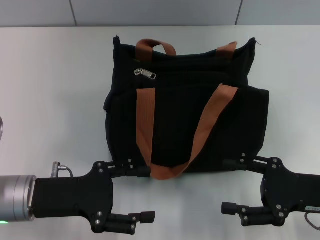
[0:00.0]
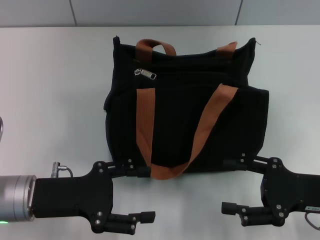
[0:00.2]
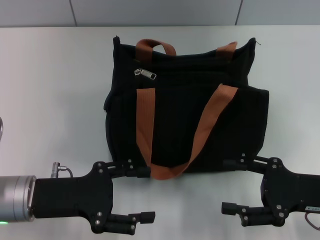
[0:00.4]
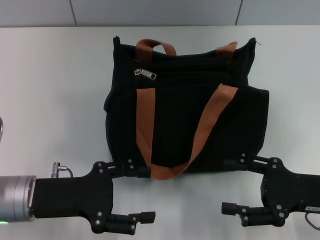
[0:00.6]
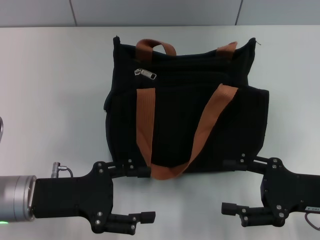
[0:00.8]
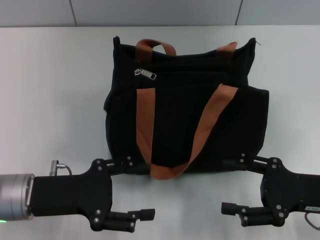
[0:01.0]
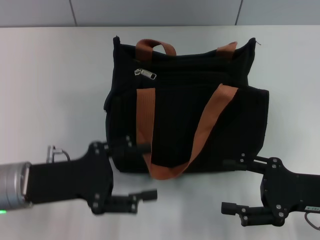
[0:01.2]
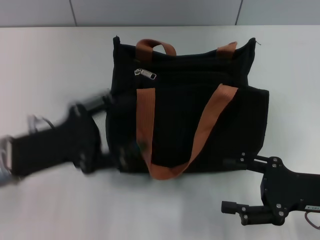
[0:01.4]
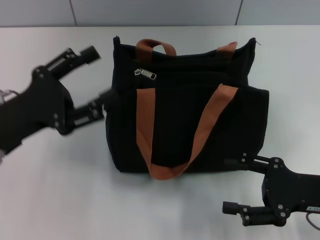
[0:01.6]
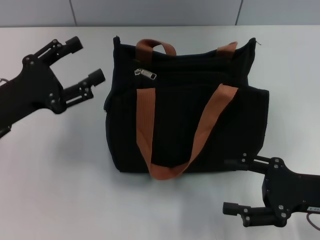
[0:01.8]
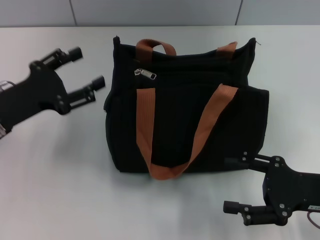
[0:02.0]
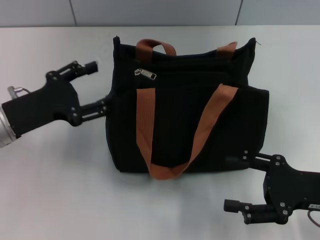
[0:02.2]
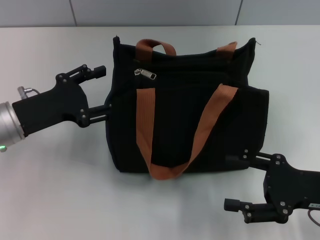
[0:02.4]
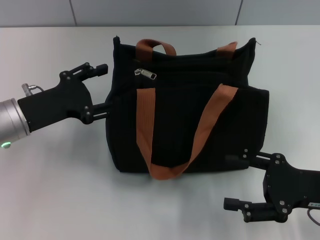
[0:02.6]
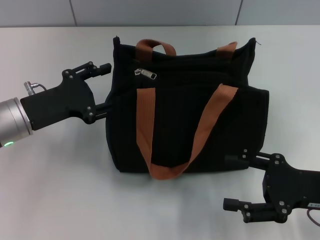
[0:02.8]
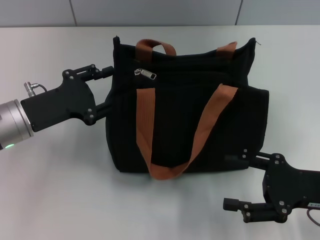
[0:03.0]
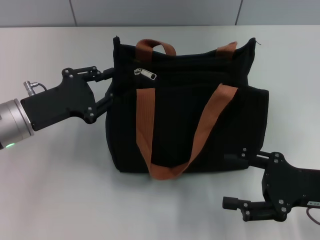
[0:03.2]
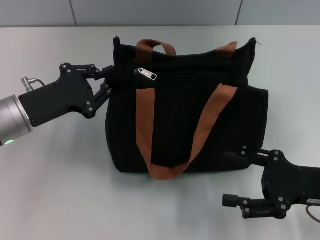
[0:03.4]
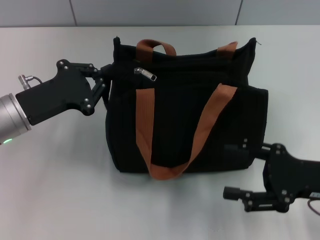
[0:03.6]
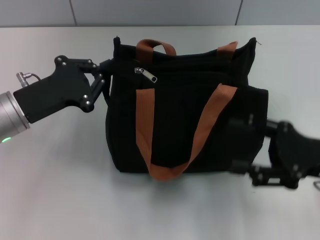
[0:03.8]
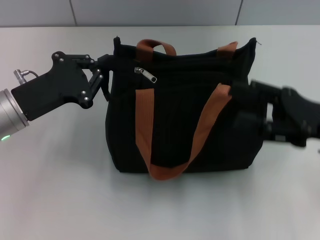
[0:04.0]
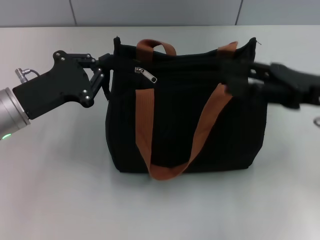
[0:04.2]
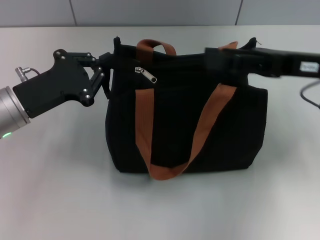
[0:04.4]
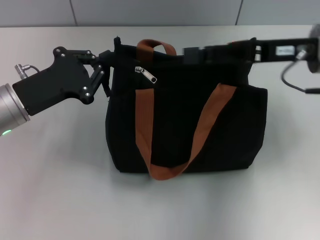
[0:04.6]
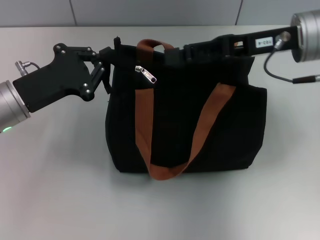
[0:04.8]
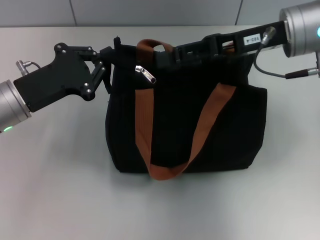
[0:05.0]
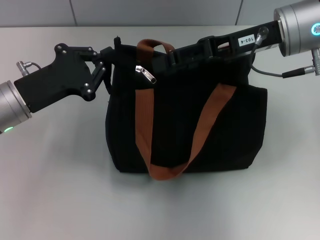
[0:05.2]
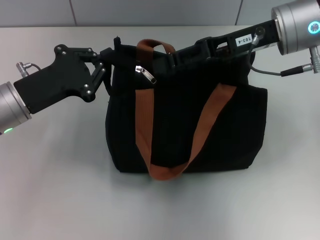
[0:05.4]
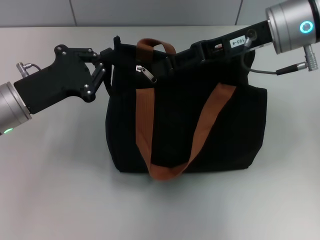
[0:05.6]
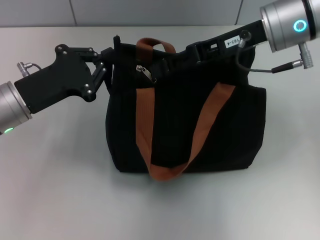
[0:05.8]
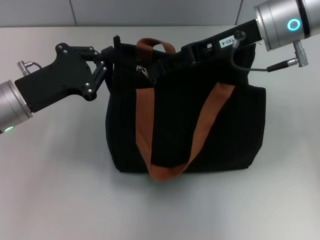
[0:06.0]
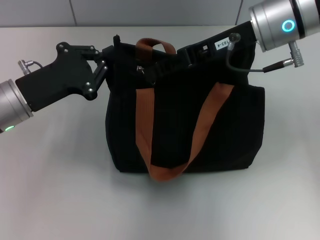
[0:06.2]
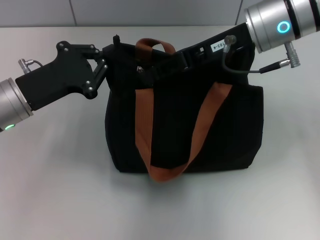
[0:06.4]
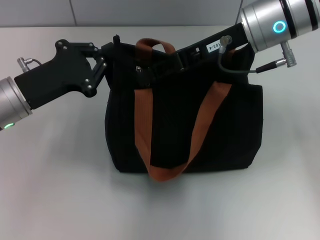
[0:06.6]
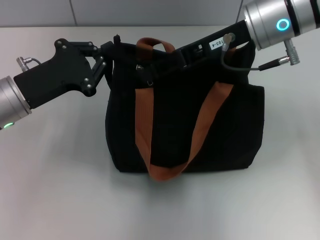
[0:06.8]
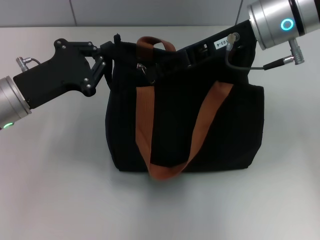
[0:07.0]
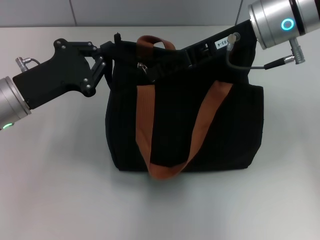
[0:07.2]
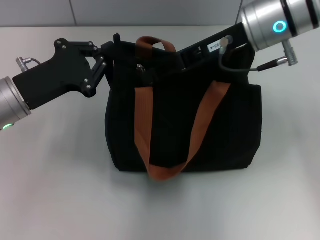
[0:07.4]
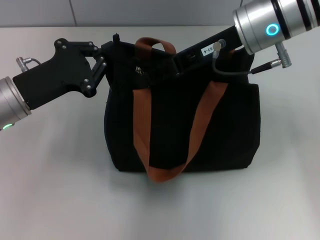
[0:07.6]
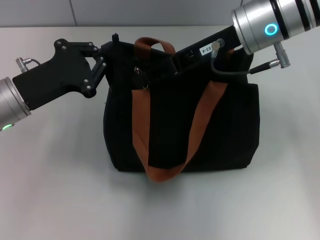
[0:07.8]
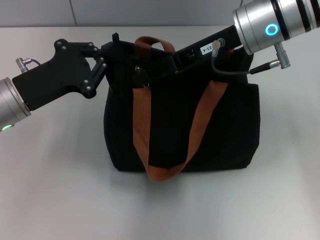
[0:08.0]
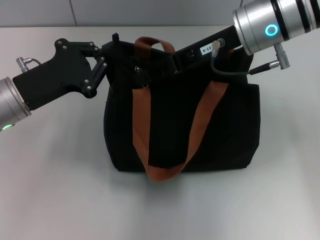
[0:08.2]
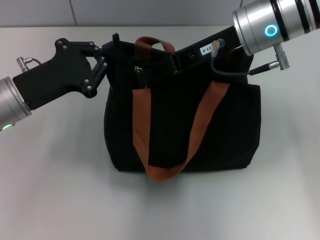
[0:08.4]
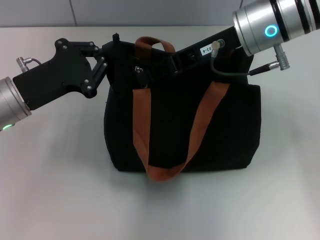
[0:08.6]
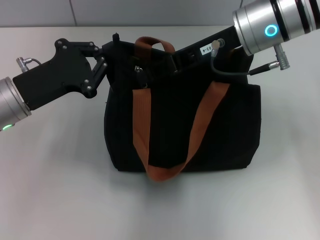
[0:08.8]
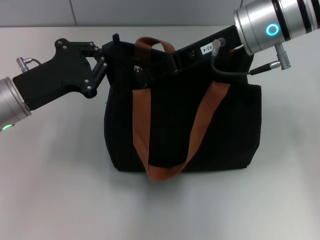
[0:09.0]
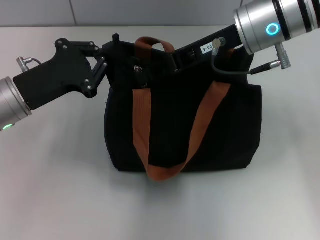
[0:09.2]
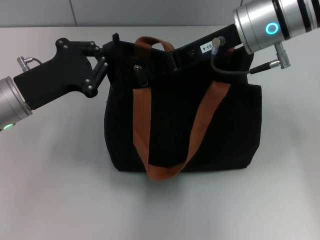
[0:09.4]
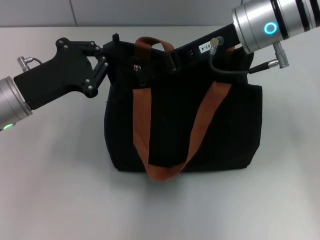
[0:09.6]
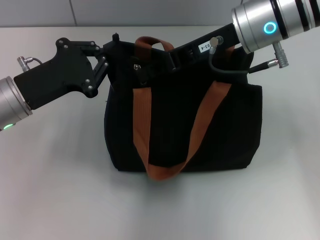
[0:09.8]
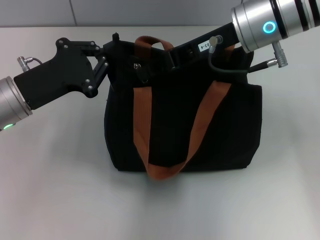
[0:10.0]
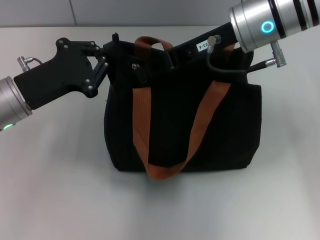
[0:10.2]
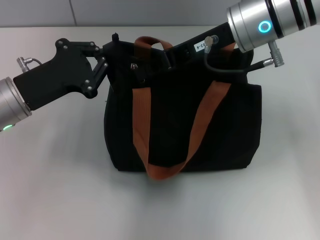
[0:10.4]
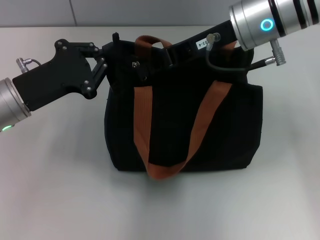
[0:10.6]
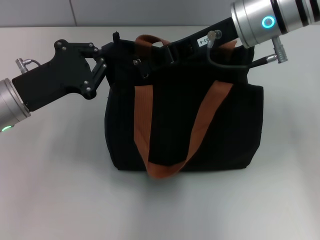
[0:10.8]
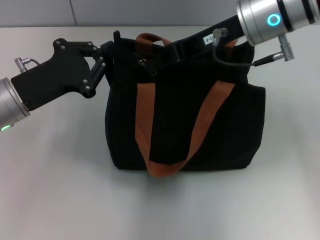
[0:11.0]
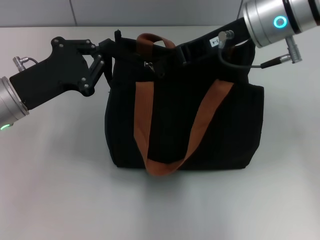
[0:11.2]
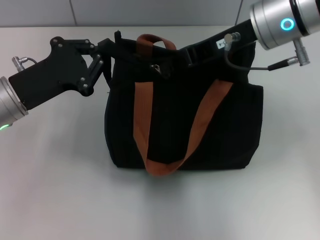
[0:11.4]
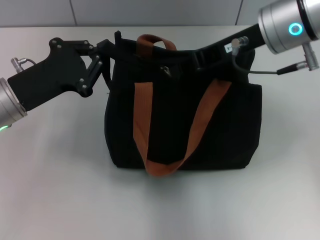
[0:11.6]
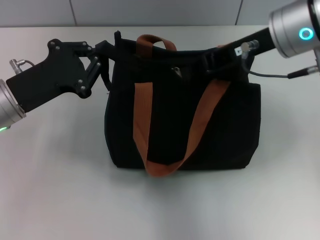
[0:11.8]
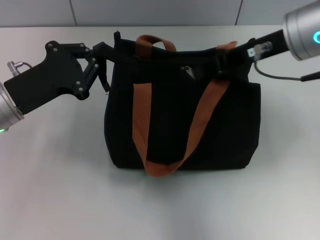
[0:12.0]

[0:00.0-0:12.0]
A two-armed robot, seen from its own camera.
0:00.0 to 0:01.6: The left gripper shifts by approximately 5 cm.
0:01.6 to 0:03.0: The left gripper changes place by approximately 5 cm.
0:03.0 to 0:04.4: The right gripper shifts some 15 cm forward and upward. Meanwhile the left gripper closes its fingers.
0:04.4 to 0:06.0: The right gripper is displaced to the left and forward by some 10 cm, and closes its fingers.
0:06.0 to 0:07.6: The grippers stay close to where they were, moving slightly.
0:07.6 to 0:10.4: Both grippers stay about where they are.
0:10.4 to 0:12.0: The right gripper shifts roughly 5 cm to the right.

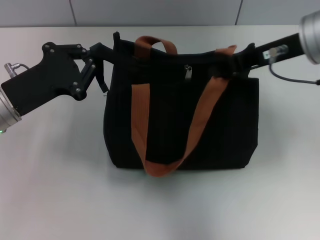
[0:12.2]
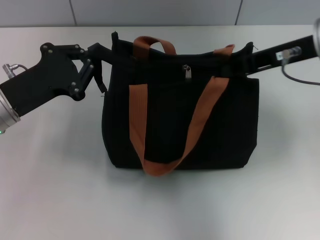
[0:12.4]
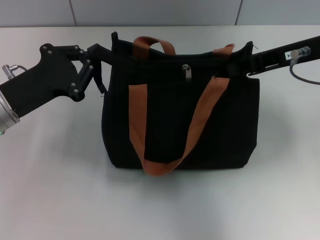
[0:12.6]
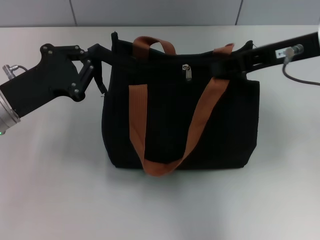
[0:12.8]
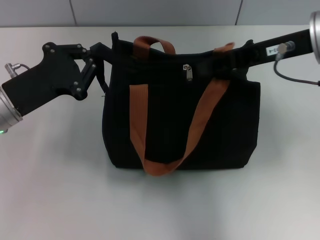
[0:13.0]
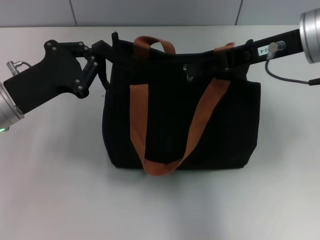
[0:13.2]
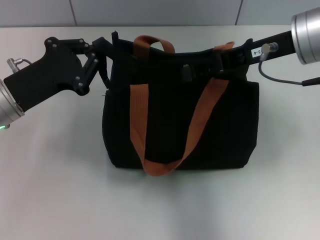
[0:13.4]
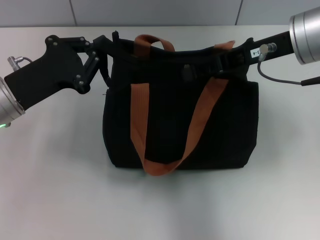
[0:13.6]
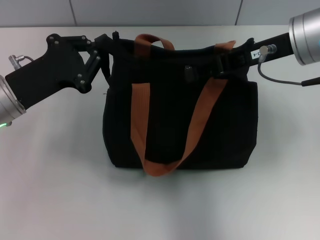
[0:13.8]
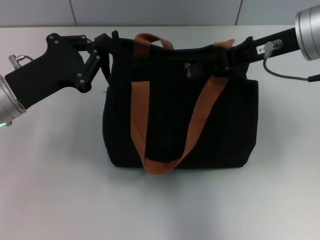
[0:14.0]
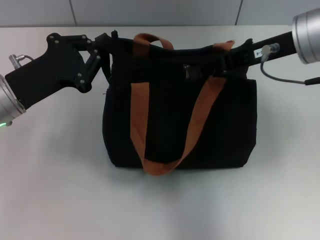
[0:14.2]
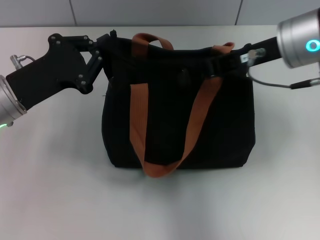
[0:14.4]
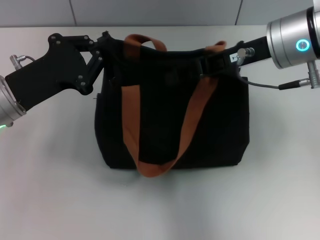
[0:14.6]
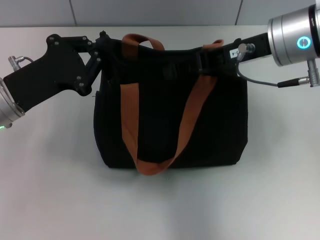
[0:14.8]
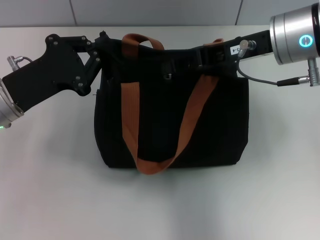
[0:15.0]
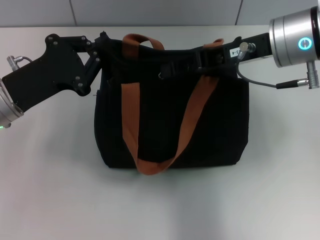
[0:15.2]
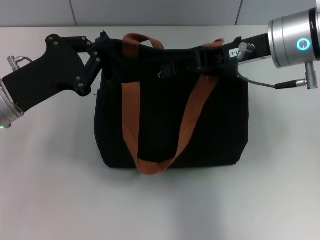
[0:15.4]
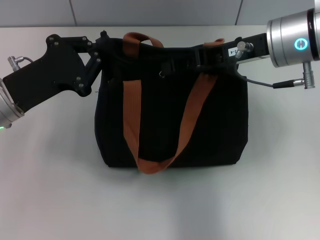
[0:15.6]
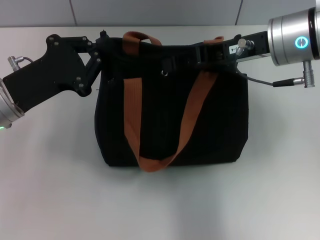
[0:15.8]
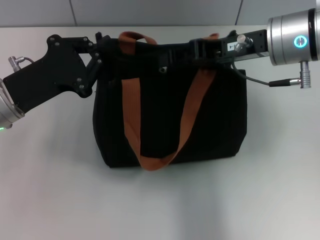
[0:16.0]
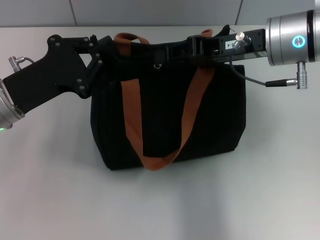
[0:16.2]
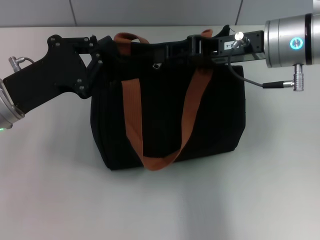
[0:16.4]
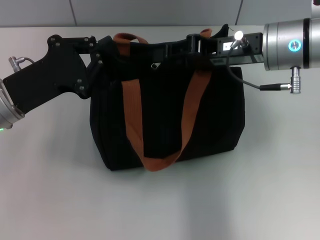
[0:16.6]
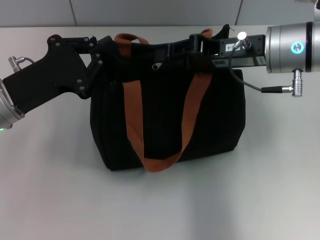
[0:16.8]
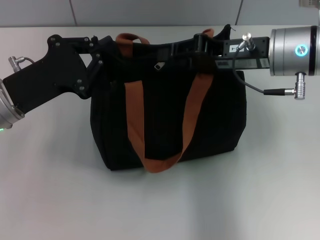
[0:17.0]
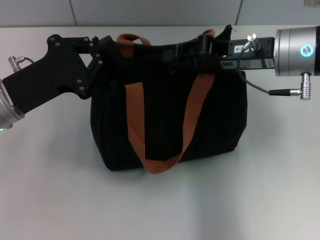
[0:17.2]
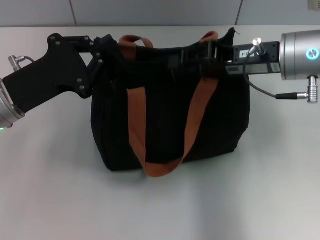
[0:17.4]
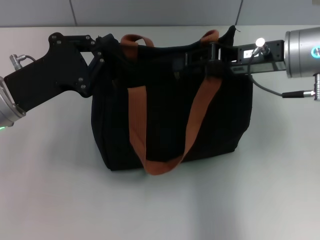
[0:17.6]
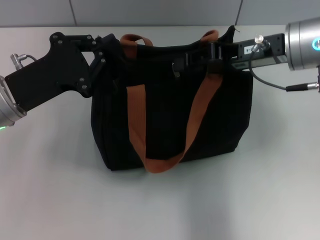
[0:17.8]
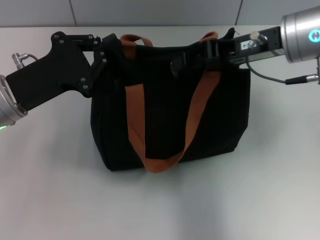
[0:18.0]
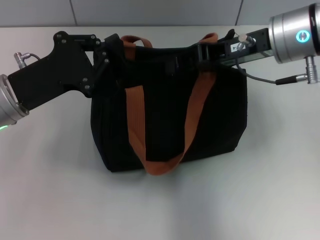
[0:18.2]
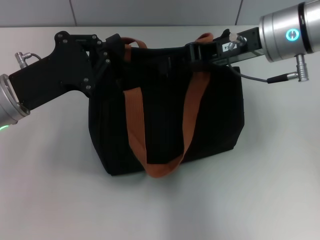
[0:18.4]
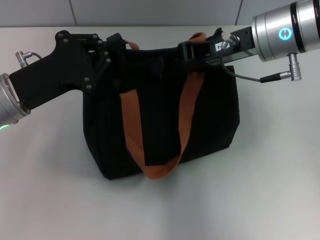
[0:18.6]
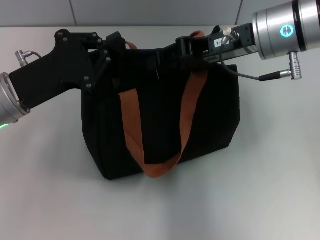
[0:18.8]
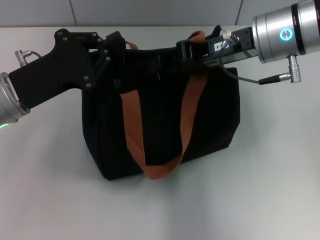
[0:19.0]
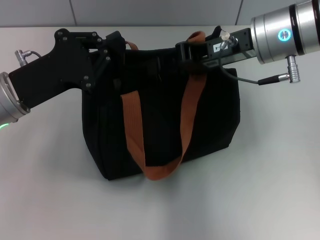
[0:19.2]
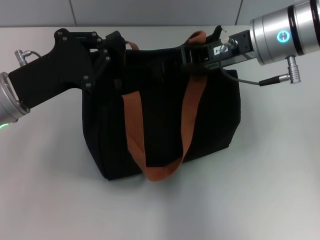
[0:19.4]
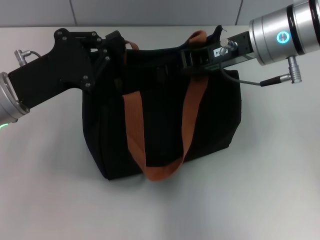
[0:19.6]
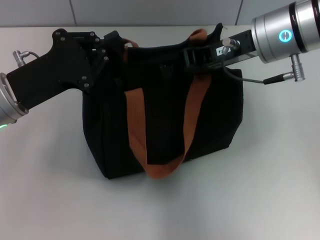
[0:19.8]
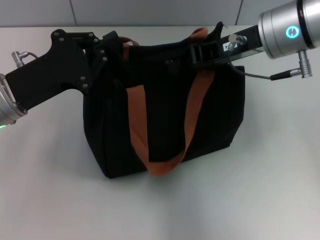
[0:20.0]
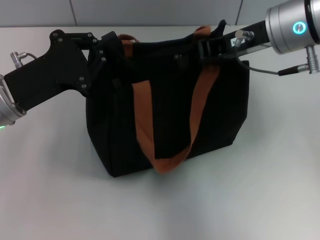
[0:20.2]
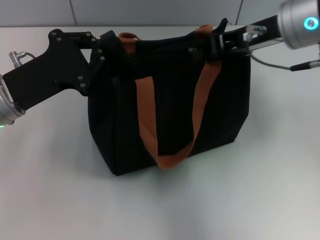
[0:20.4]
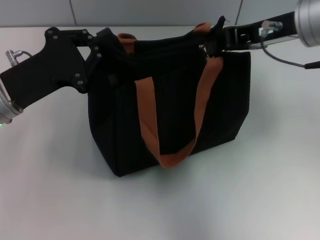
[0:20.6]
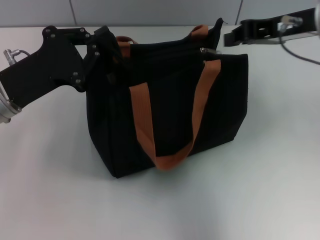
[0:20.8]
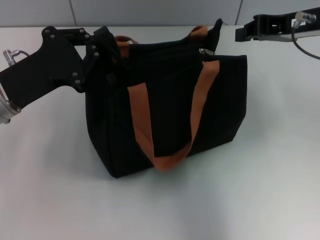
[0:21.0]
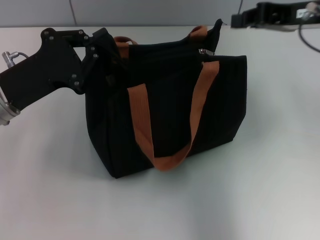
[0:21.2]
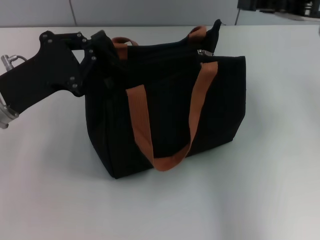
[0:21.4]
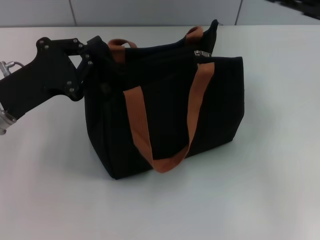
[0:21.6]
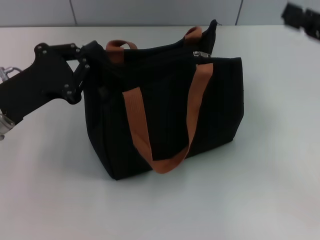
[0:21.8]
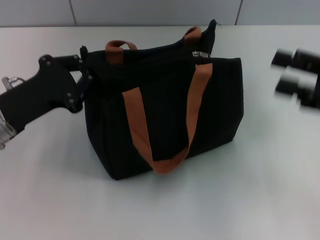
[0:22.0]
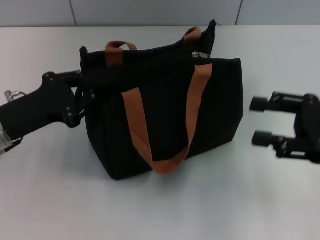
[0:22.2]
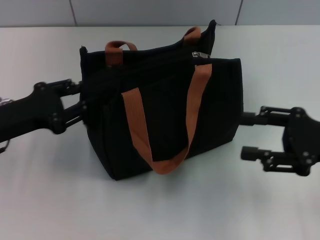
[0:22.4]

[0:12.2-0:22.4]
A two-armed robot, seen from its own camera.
Step, 0:12.2 to 0:20.6: Pull up the zipper with your right hand.
Step, 0:20.8 to 0:22.2: Grab the zipper with your left hand.
0:12.2 to 0:13.6: The right gripper opens.
0:13.6 to 0:15.2: The grippers stay close to where they were, moving slightly.
0:15.2 to 0:16.6: The grippers stay close to where they were, moving slightly.
0:16.6 to 0:19.4: There are only small adjustments of the grippers.
0:19.4 to 0:21.0: The right gripper shifts some 5 cm to the right.
0:21.0 to 0:22.4: The left gripper changes place by approximately 5 cm, while the right gripper shifts roughly 15 cm downward, backward and to the right, and opens its fingers.
